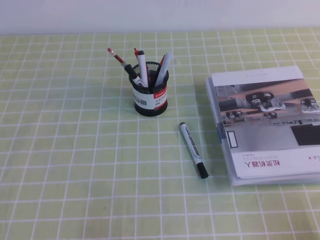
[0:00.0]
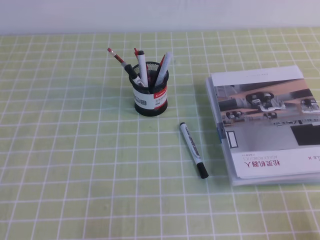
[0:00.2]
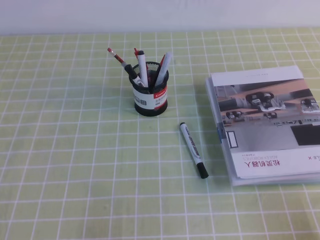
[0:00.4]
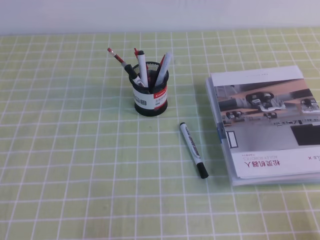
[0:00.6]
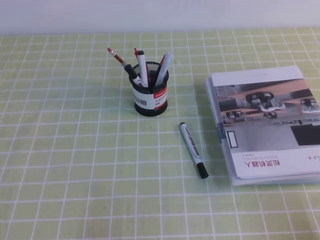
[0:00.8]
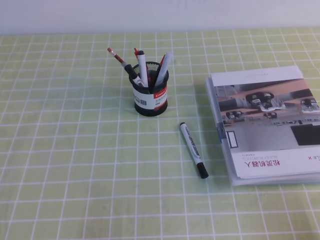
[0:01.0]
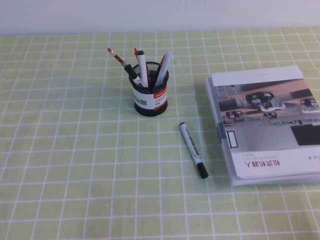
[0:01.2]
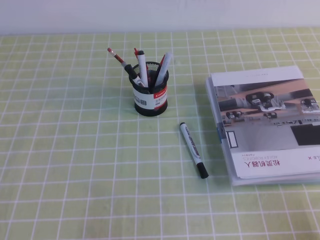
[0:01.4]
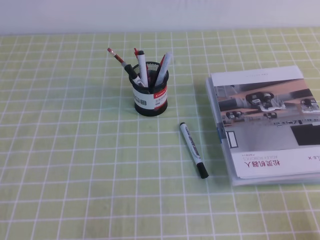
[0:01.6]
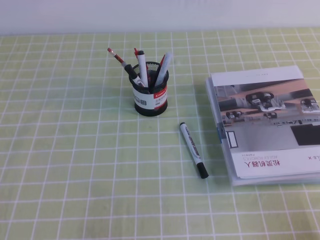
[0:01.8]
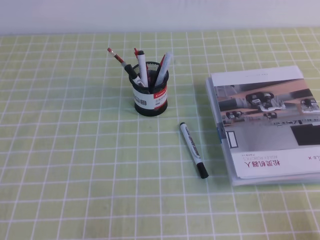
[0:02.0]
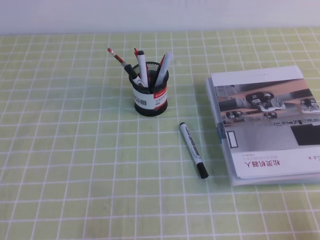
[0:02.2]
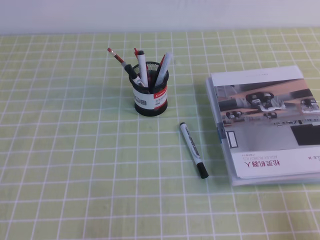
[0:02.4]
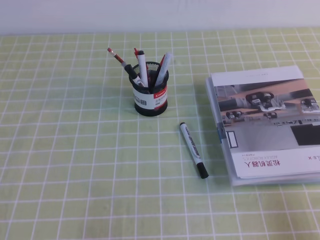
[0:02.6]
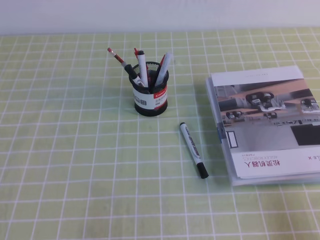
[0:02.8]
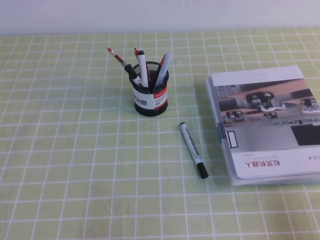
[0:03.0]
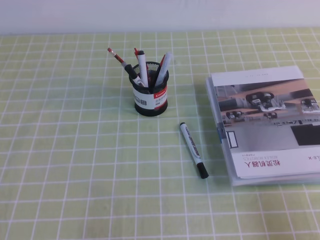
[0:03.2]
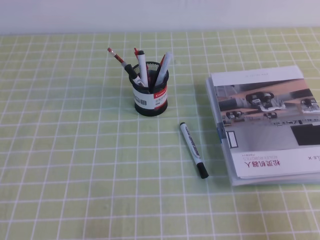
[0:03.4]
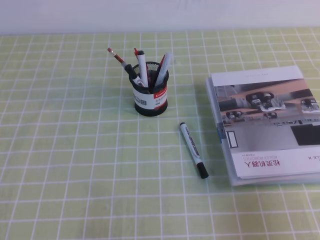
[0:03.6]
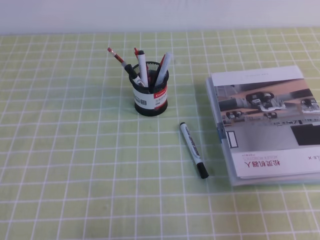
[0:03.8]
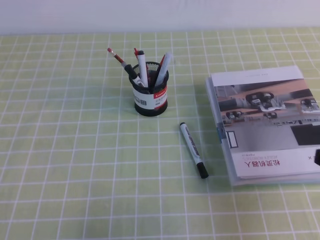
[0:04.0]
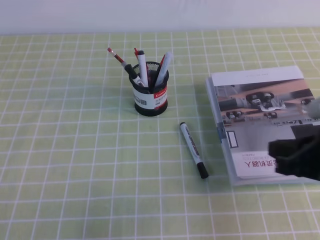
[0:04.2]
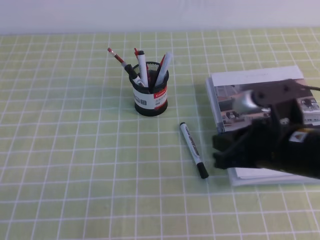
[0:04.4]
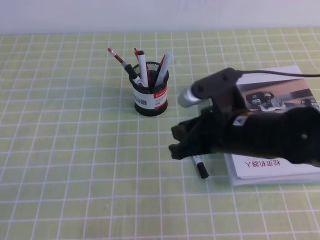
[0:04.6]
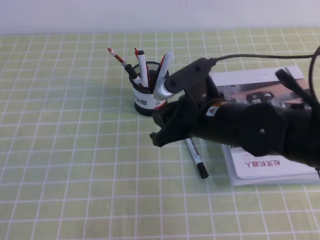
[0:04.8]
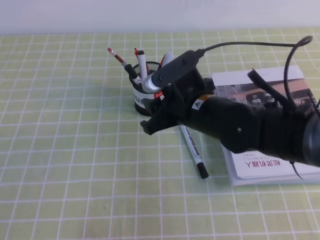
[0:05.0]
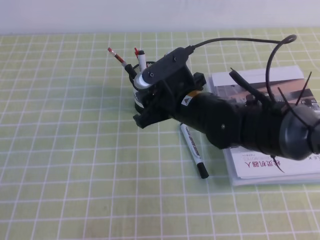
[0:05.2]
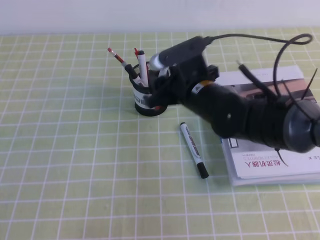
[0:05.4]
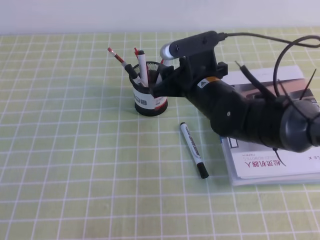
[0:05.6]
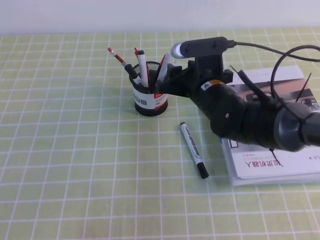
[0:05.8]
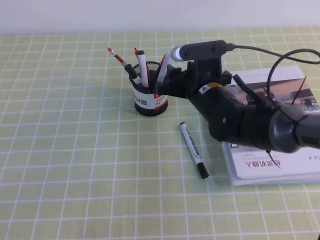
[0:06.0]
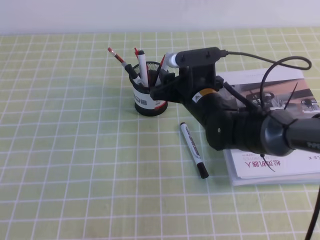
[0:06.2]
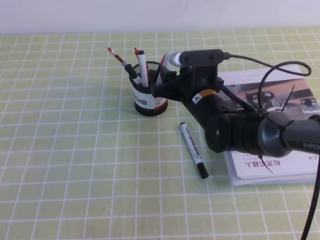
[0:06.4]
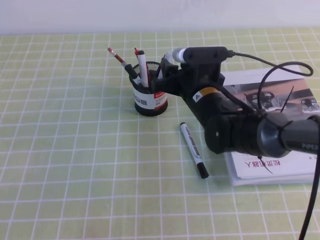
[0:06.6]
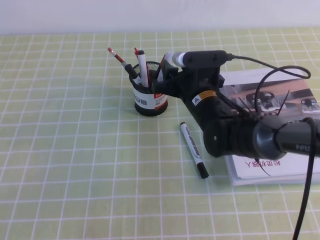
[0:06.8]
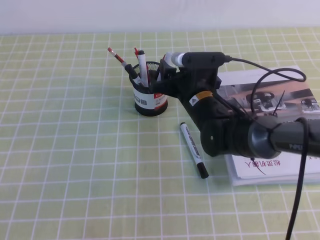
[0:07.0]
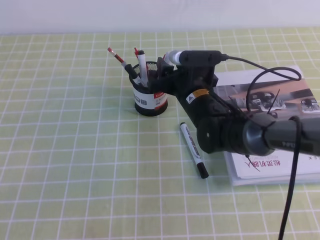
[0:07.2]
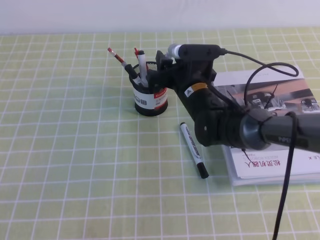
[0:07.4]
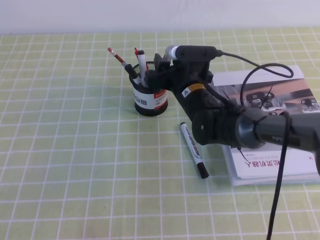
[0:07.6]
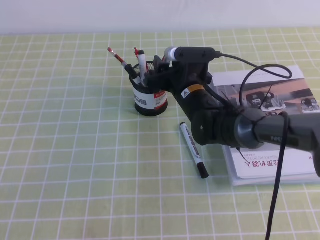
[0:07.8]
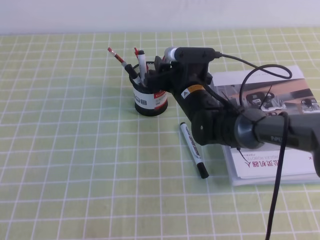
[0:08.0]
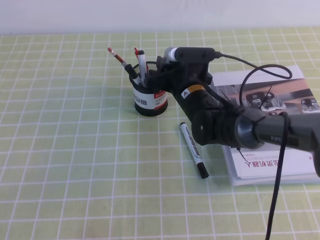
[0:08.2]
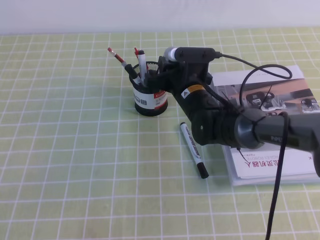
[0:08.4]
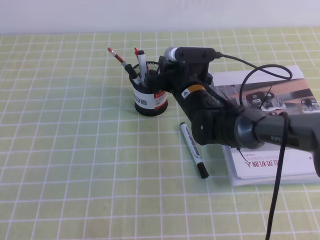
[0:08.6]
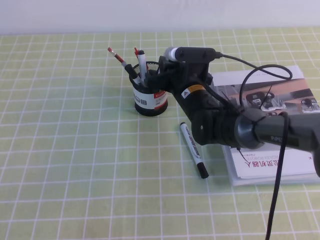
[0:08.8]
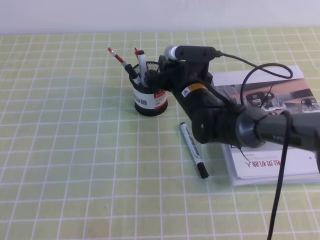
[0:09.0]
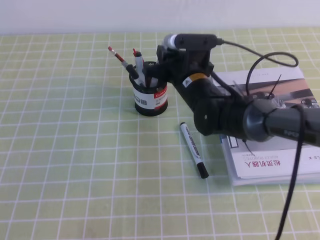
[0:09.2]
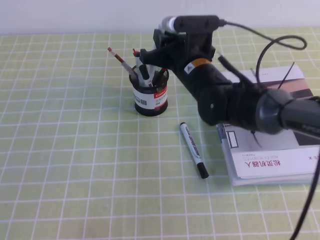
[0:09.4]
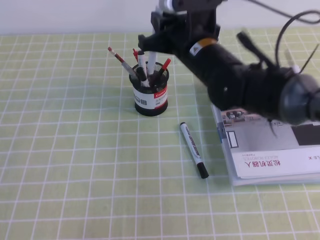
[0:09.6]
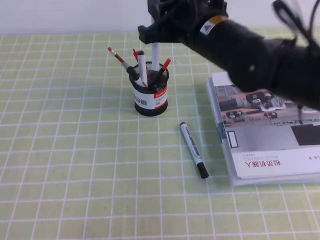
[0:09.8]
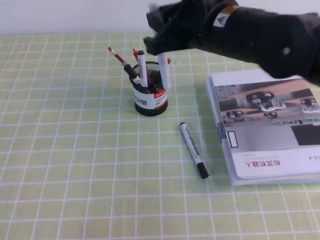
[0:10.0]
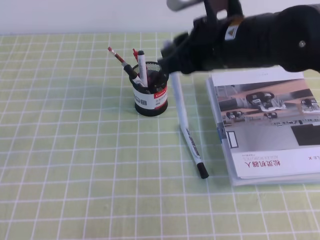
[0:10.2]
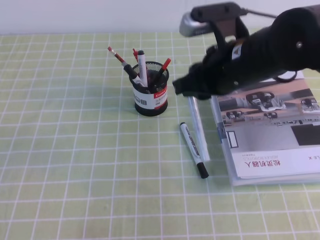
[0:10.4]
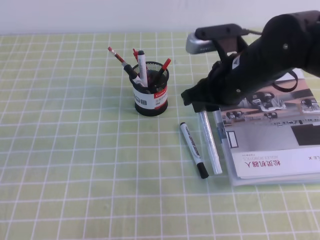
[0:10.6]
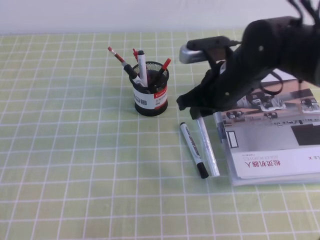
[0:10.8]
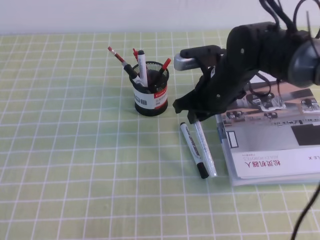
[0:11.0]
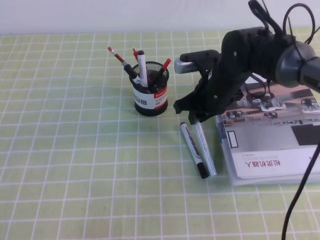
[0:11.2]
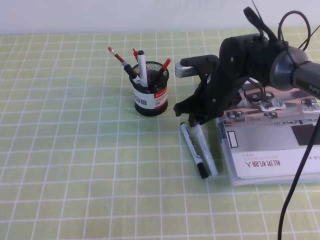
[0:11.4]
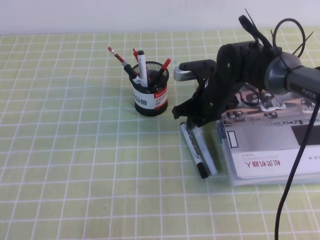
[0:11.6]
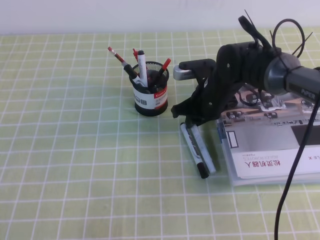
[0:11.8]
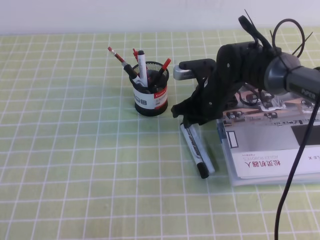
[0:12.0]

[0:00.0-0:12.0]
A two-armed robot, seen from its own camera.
0:00.0 to 0:01.6: Both grippers stay about where they are.
0:03.0 to 0:04.4: The right gripper shifts roughly 20 cm forward, to the left and upward.
0:04.4 to 0:06.0: The right gripper moves forward and to the left, some 20 cm, and opens.
0:06.0 to 0:07.6: The right gripper changes place by about 5 cm.
0:07.6 to 0:09.0: The right gripper closes its fingers.
0:09.0 to 0:10.4: The right gripper is displaced upward, backward and to the right by about 15 cm.
0:10.4 to 0:12.0: The right gripper shifts approximately 15 cm downward and forward.

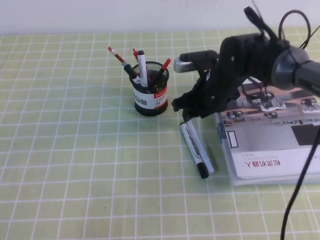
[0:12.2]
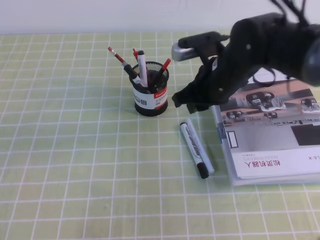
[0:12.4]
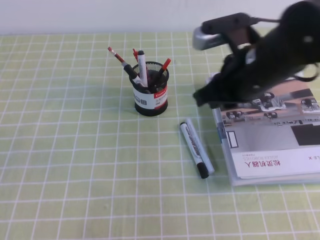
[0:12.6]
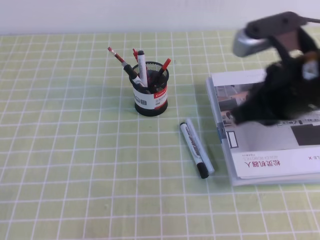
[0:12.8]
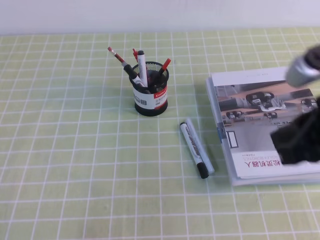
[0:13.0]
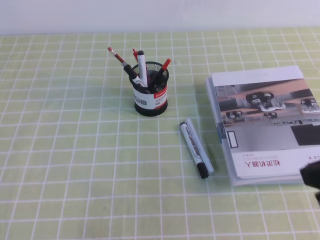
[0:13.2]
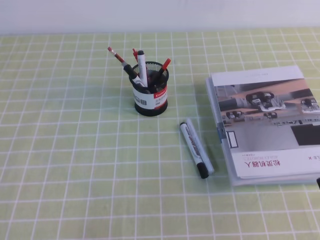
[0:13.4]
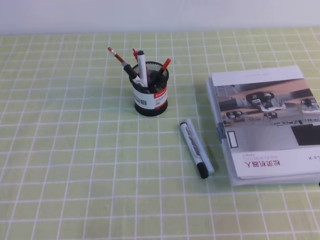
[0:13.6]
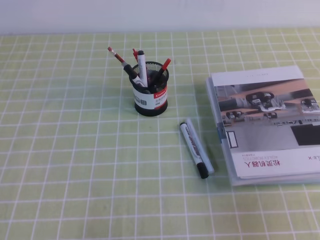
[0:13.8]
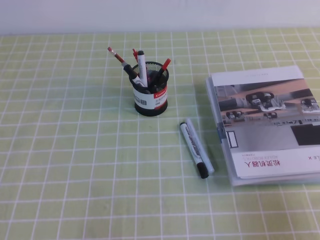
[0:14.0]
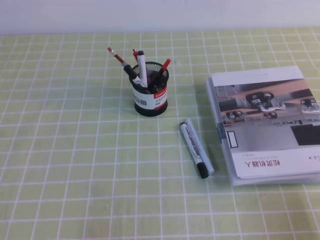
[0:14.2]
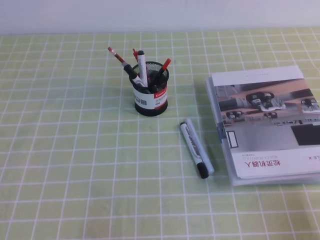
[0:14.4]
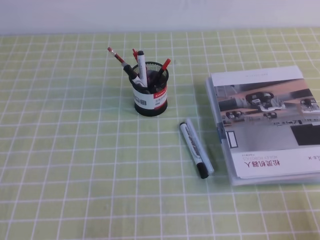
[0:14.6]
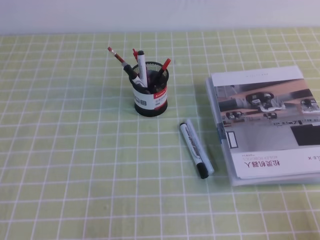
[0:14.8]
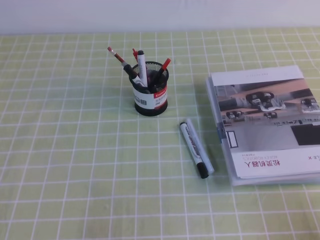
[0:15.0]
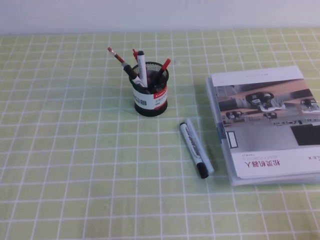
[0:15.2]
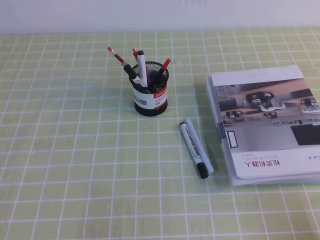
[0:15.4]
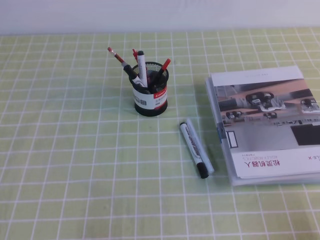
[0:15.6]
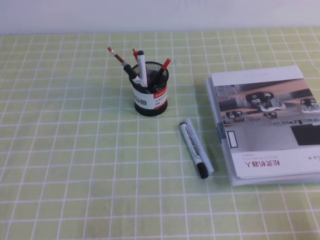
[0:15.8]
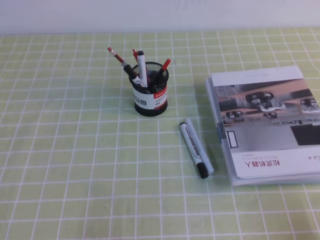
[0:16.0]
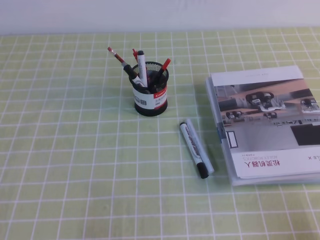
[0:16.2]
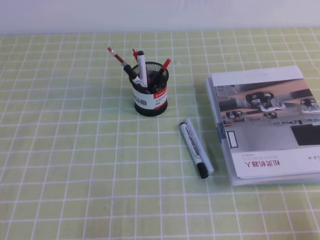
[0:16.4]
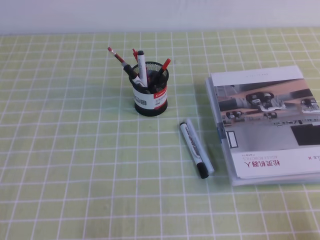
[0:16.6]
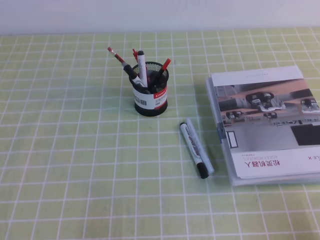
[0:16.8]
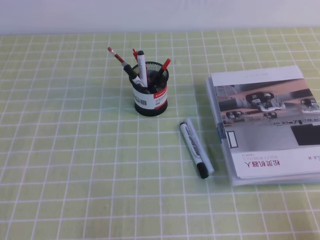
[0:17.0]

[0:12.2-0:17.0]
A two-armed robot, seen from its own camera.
Step, 0:12.2 to 0:17.0: Pick up the pen from the pen holder.
0:12.2 to 0:13.8: The right gripper goes about 35 cm backward and to the right, and closes its fingers.
0:13.8 to 0:15.4: The right gripper moves downward and backward, some 10 cm.
0:15.4 to 0:17.0: Both grippers stay put.

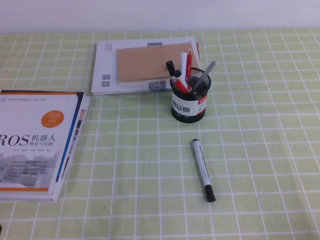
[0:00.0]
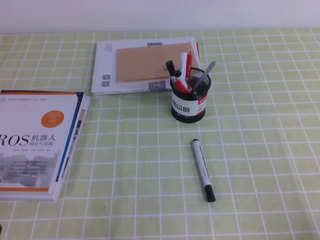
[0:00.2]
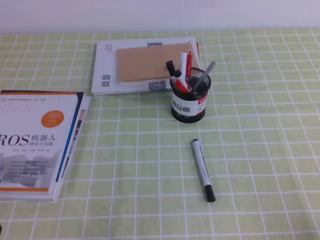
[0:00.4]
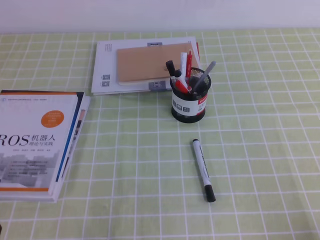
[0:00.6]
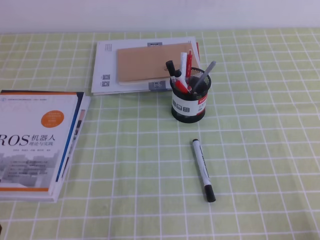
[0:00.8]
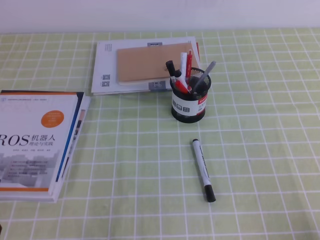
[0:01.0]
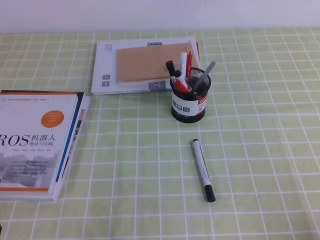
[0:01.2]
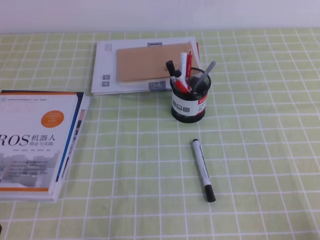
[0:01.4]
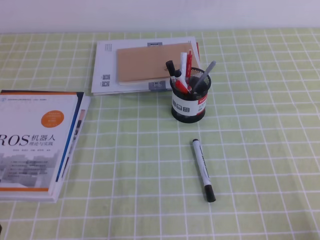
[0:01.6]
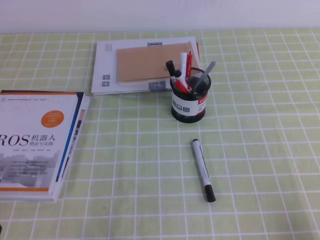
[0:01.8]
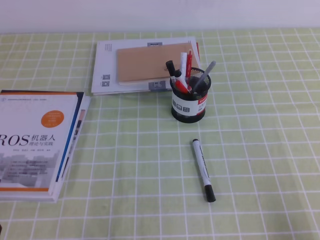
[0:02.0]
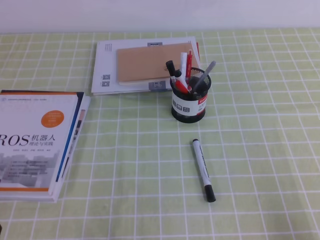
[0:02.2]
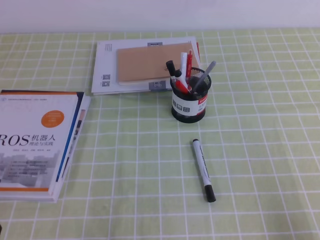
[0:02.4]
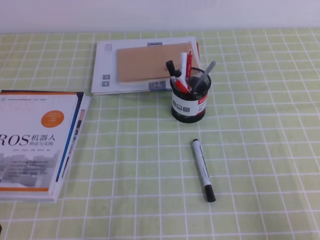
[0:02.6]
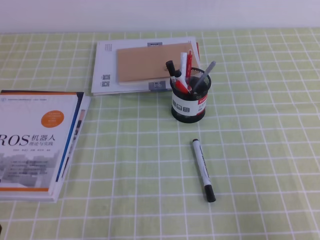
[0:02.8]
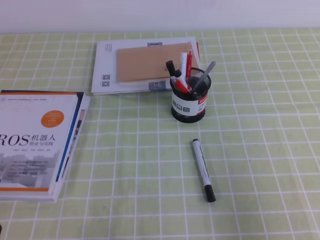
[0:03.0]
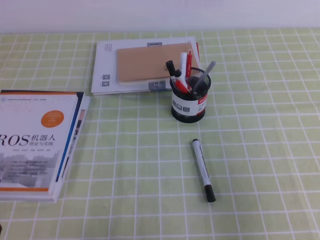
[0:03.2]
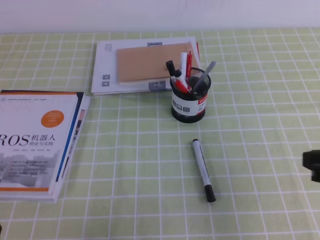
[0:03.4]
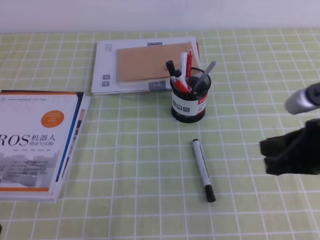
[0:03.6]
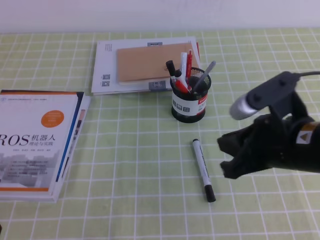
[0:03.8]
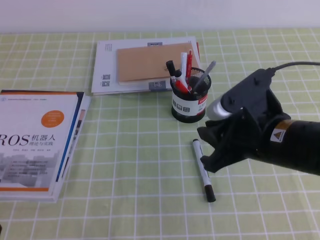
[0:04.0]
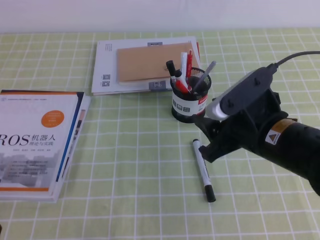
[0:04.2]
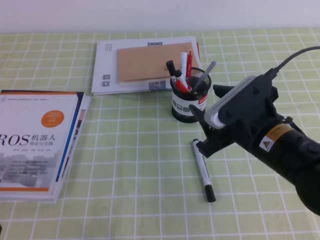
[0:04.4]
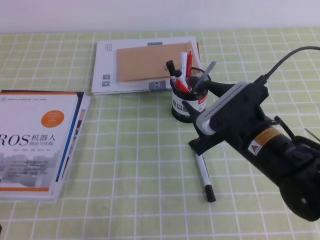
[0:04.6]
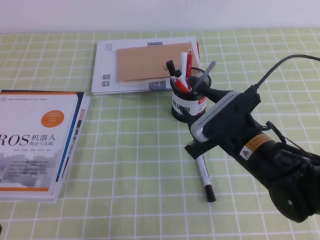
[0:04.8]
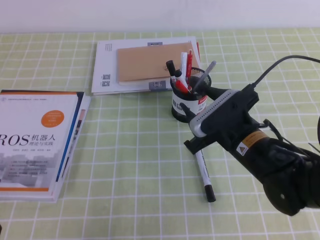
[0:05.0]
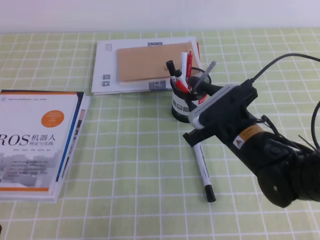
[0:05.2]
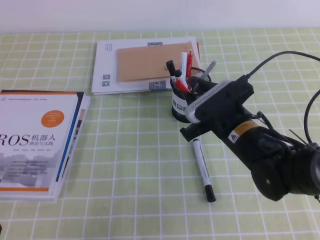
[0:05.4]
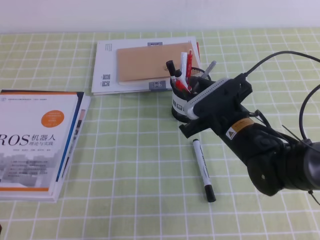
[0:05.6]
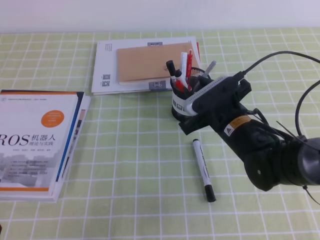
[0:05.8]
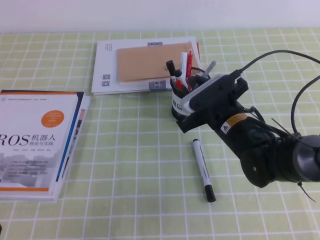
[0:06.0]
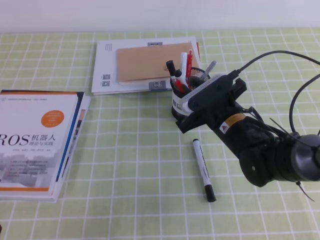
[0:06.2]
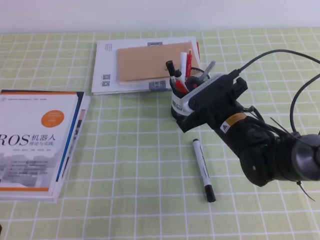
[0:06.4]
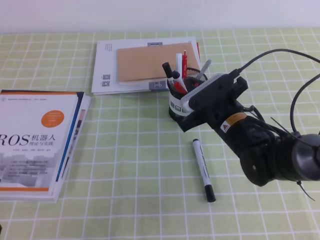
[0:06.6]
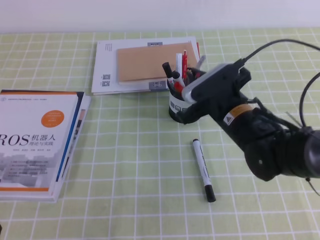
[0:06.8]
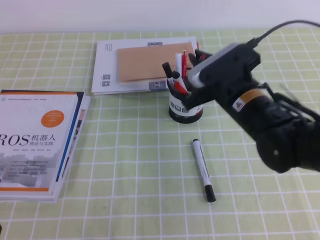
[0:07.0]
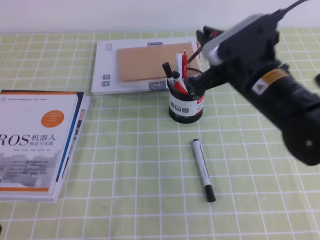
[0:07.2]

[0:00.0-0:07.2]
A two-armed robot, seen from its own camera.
0:00.0 to 0:01.4: Neither gripper changes place.
0:01.4 to 0:02.8: The right gripper is displaced upward by about 10 cm.
0:02.8 to 0:04.4: The right gripper shifts some 25 cm to the left and forward, and opens its fingers.
0:04.4 to 0:05.8: The right gripper heads forward and downward, covering some 10 cm.
0:05.8 to 0:07.2: The right gripper travels upward by approximately 10 cm, and closes its fingers.
